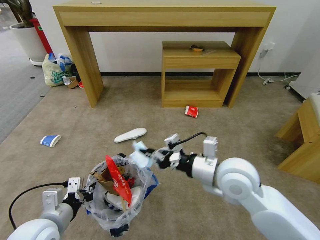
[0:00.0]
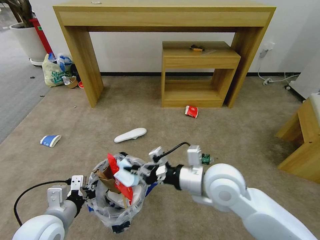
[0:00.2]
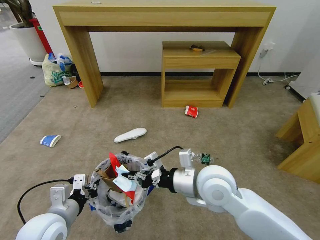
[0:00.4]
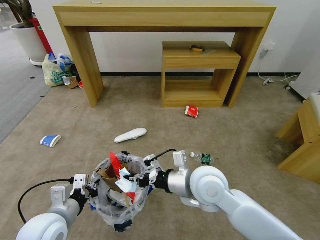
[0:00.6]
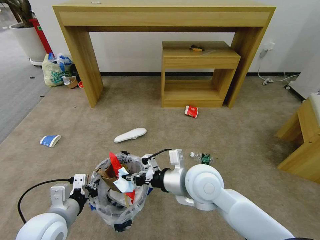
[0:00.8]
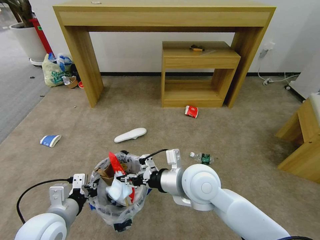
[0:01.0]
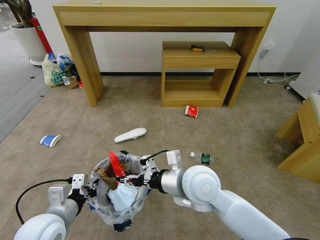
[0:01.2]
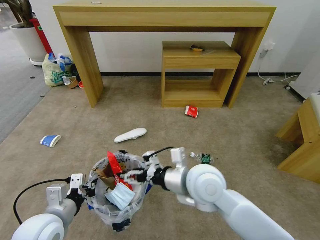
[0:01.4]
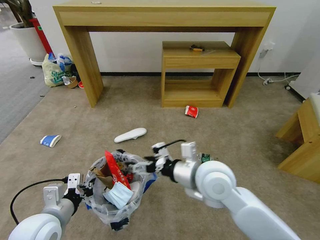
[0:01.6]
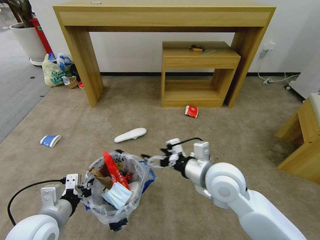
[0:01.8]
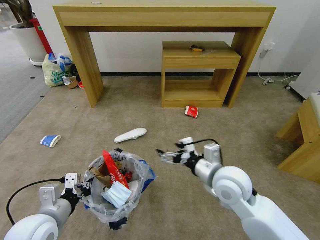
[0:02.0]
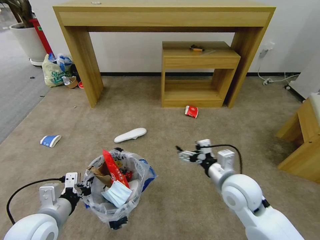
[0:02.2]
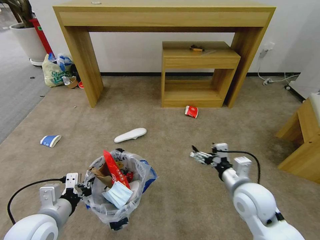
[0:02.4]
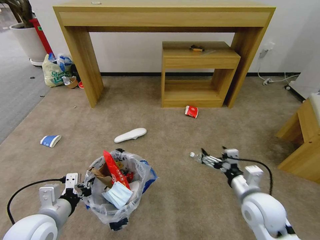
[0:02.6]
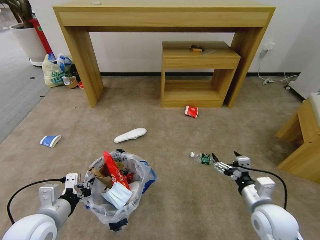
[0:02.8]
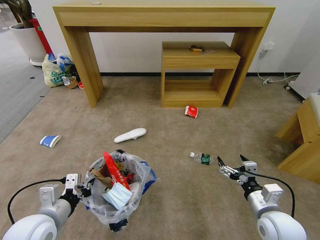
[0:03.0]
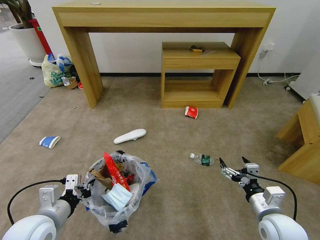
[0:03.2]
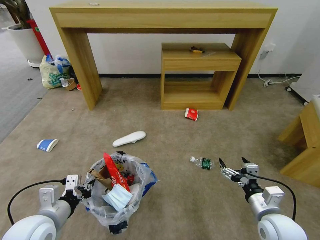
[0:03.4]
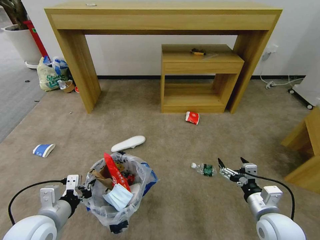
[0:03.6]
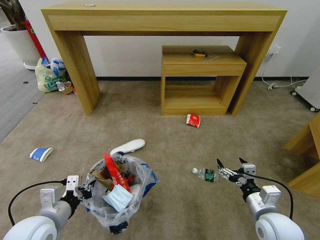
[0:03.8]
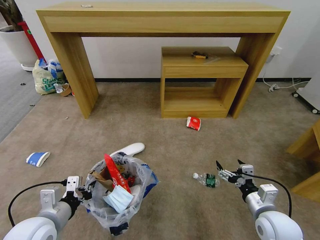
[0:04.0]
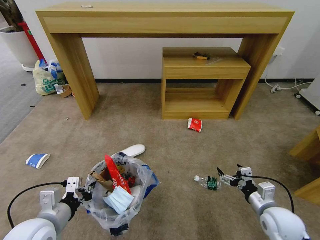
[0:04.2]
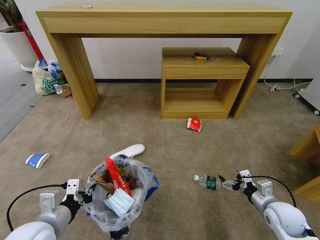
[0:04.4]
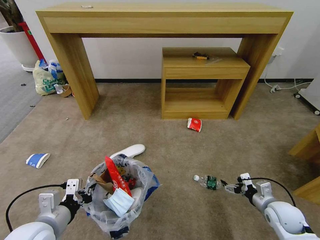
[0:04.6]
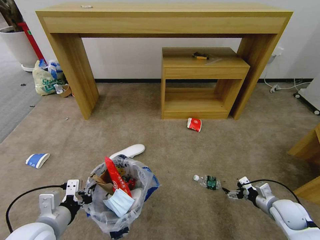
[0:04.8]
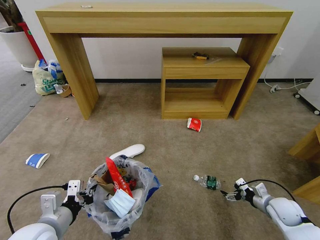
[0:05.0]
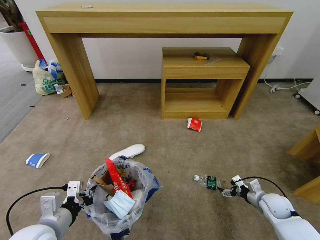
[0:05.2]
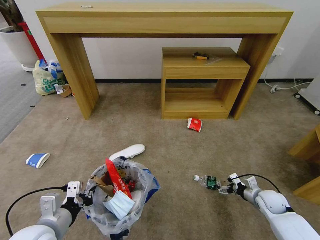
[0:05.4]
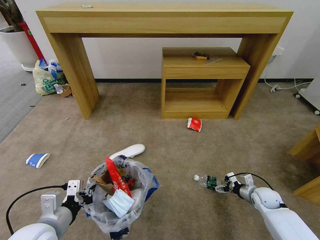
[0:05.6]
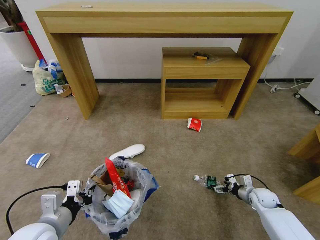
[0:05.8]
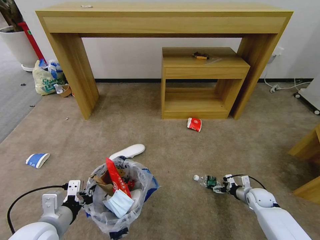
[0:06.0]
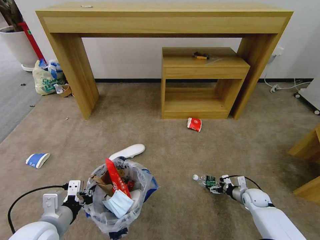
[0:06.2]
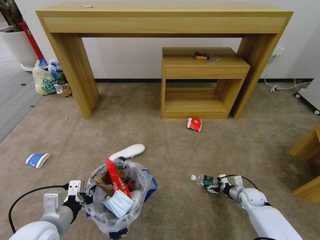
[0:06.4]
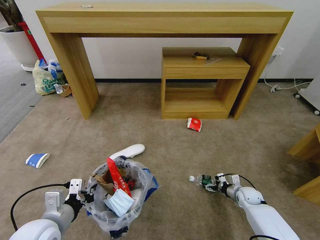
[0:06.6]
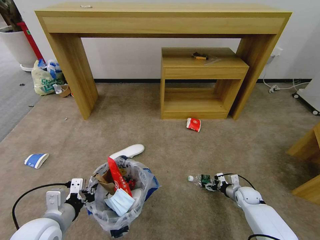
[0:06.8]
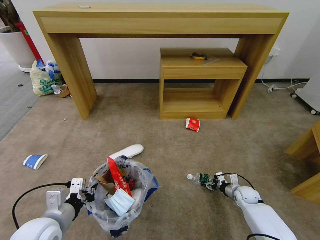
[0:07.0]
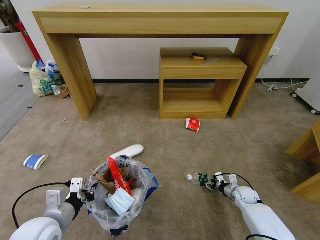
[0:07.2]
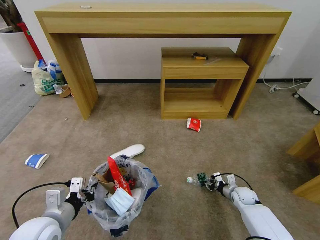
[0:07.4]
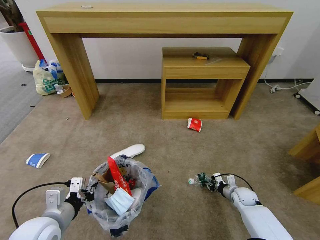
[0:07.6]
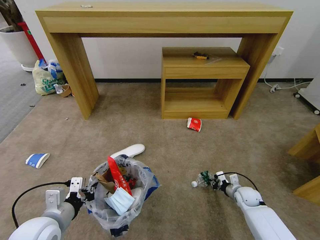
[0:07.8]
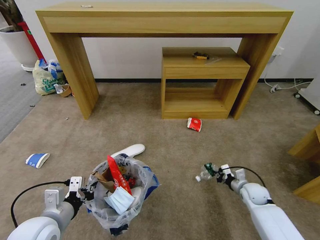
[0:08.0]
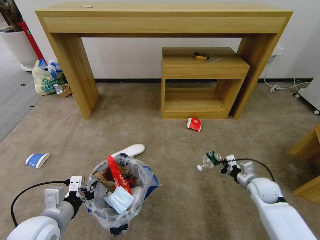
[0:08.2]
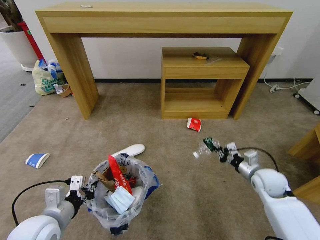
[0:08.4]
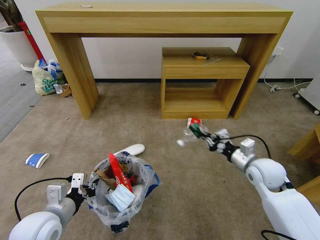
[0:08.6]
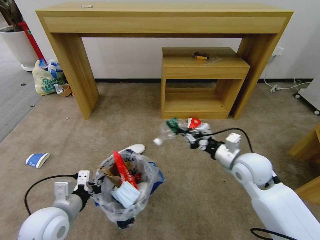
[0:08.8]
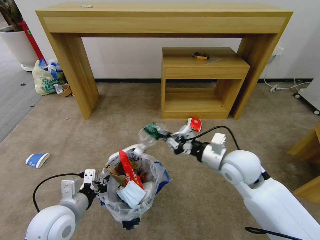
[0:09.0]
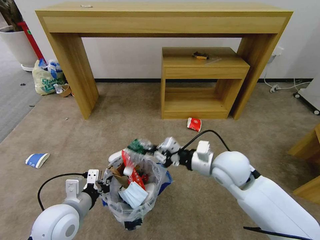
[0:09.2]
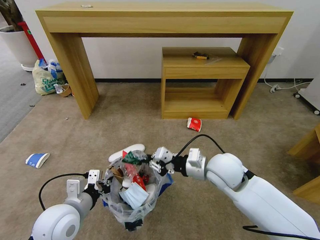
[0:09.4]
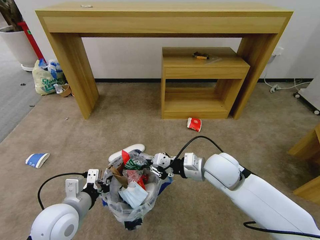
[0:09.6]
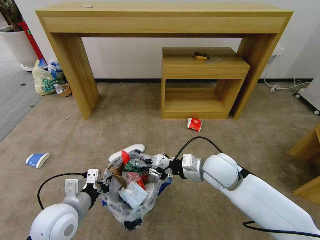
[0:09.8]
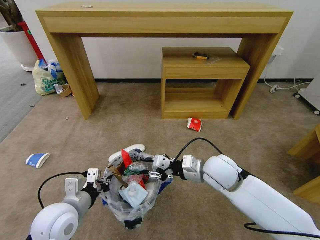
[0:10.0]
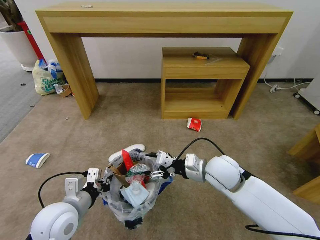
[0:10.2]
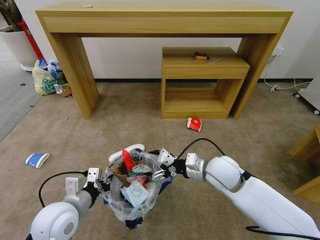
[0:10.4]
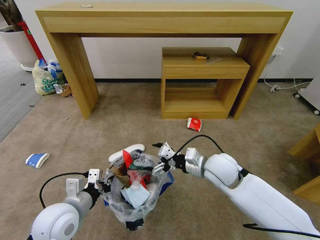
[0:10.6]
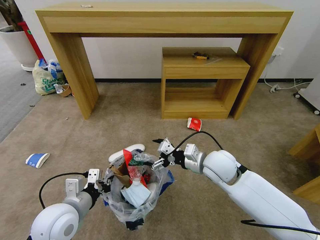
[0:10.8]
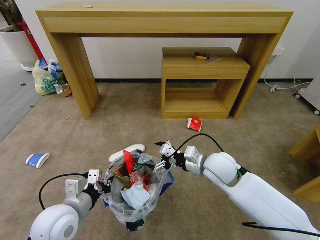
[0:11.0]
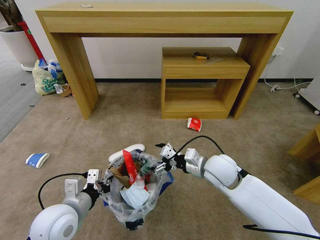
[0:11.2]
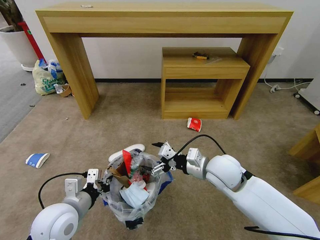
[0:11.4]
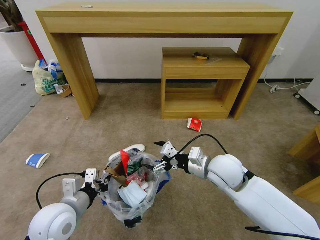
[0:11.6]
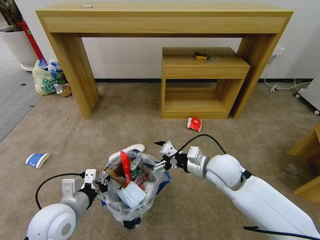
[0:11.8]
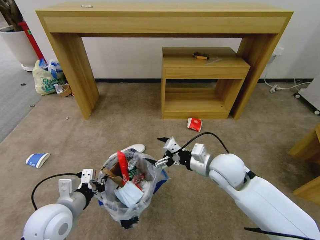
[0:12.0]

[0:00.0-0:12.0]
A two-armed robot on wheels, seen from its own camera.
Task of the whole recording: Pick up the trash bin and place the garbage on the floor into it.
0:00.0 to 0:01.6: The right gripper shifts some 5 cm to the left, and opens.
0:01.6 to 0:03.0: The right gripper heads to the right, downward and backward, covering some 25 cm.
0:03.0 to 0:04.4: The right gripper moves to the right, about 5 cm.
0:04.4 to 0:06.0: The right gripper moves downward and forward, roughly 15 cm.
0:06.0 to 0:07.6: The right gripper goes some 5 cm to the left, and closes its fingers.
0:07.6 to 0:09.0: The right gripper goes roughly 35 cm upward and to the left.
0:09.0 to 0:10.4: The right gripper changes place by some 5 cm, and opens.
0:10.4 to 0:12.0: The grippers move only a little.

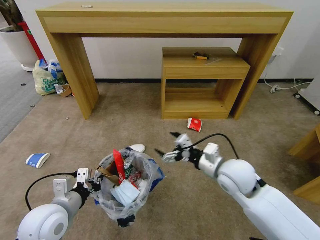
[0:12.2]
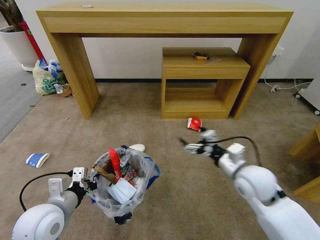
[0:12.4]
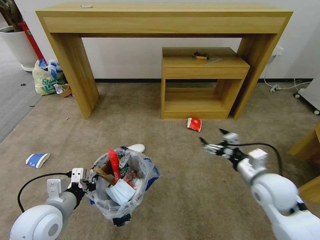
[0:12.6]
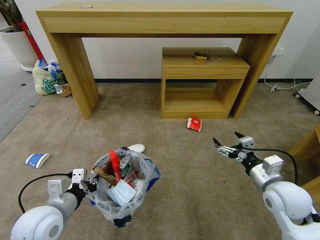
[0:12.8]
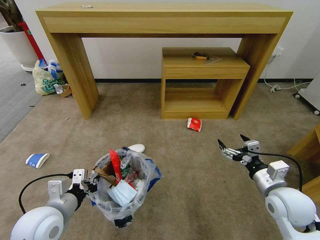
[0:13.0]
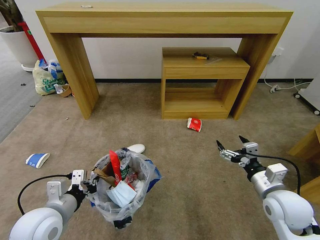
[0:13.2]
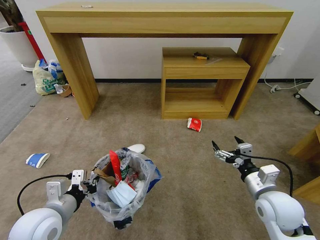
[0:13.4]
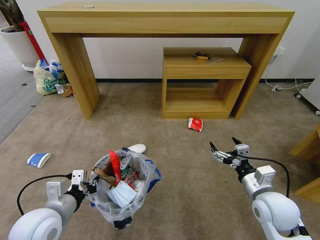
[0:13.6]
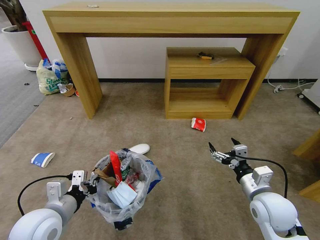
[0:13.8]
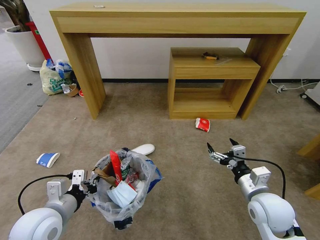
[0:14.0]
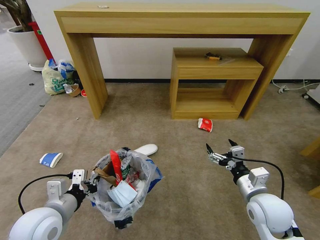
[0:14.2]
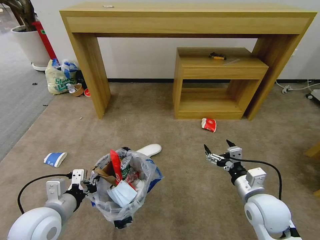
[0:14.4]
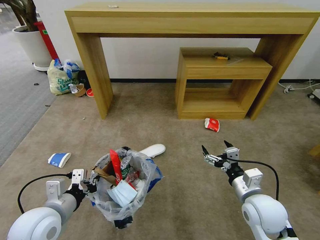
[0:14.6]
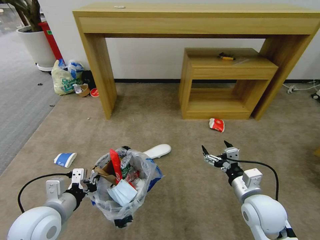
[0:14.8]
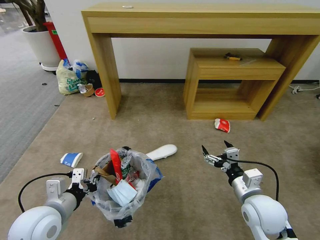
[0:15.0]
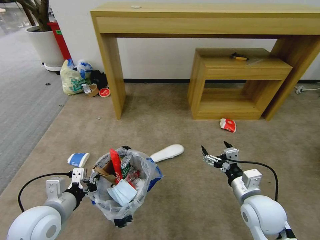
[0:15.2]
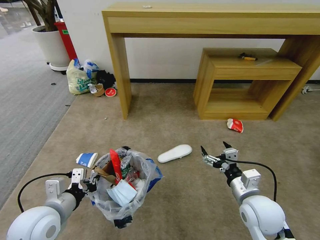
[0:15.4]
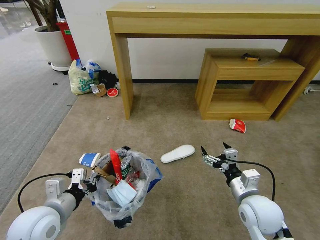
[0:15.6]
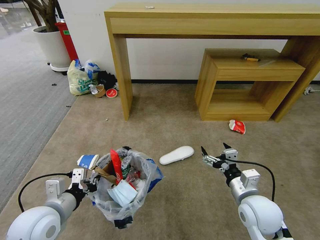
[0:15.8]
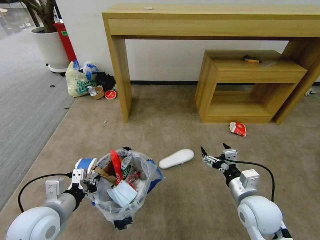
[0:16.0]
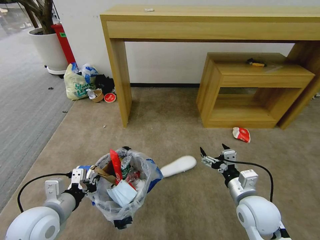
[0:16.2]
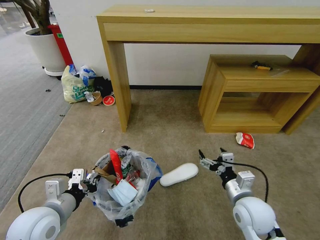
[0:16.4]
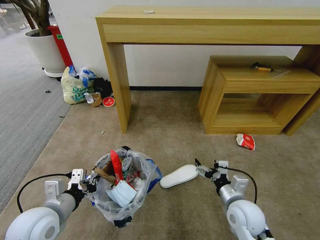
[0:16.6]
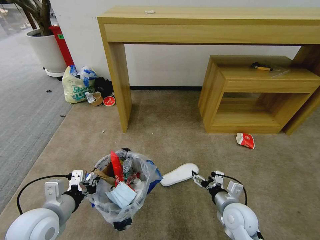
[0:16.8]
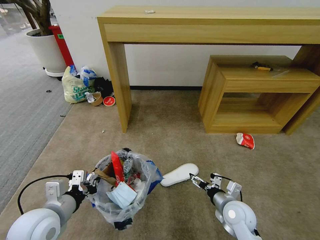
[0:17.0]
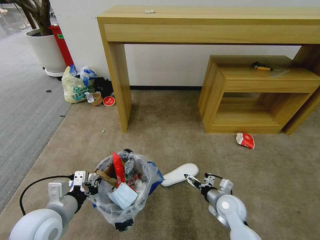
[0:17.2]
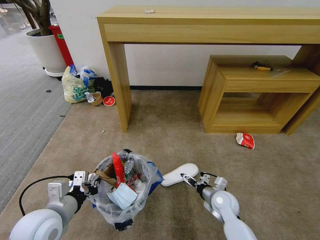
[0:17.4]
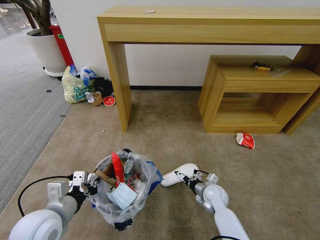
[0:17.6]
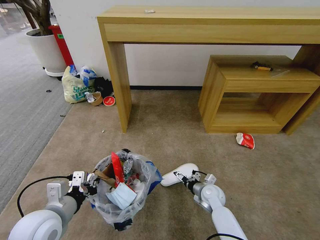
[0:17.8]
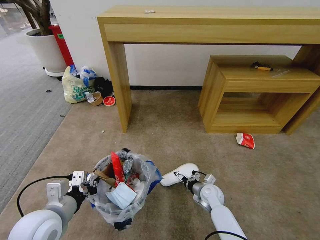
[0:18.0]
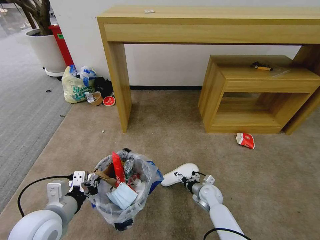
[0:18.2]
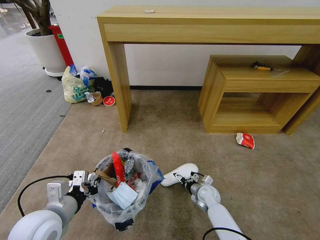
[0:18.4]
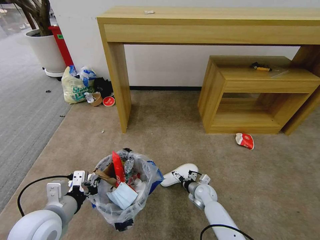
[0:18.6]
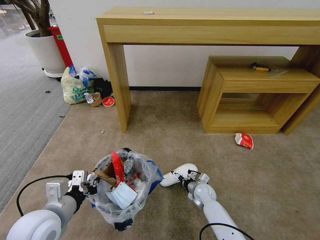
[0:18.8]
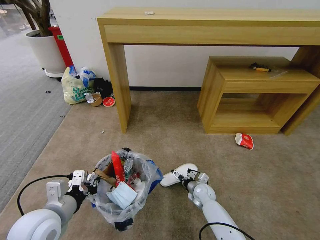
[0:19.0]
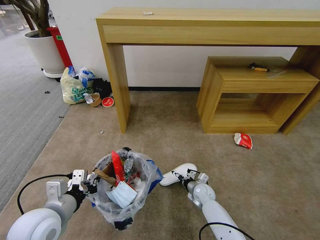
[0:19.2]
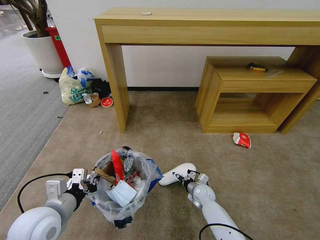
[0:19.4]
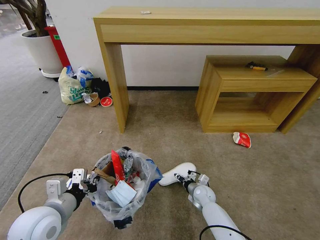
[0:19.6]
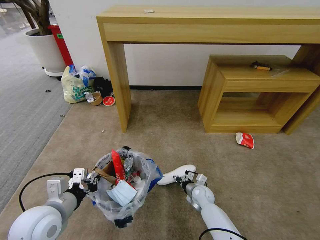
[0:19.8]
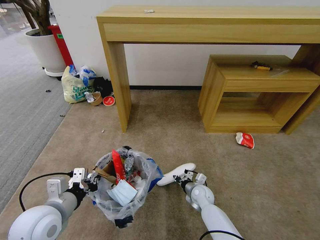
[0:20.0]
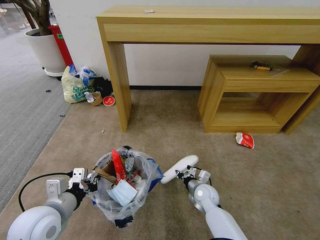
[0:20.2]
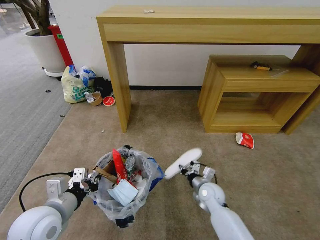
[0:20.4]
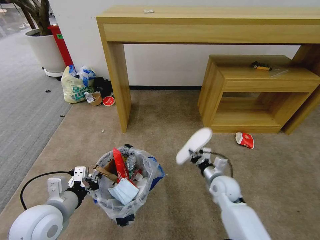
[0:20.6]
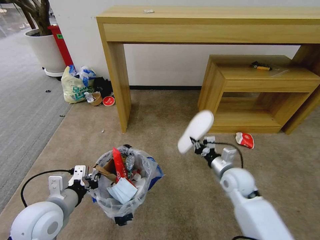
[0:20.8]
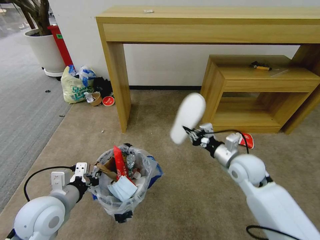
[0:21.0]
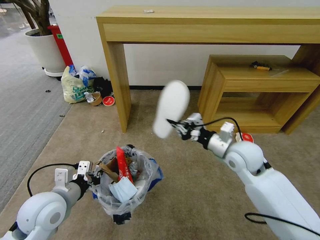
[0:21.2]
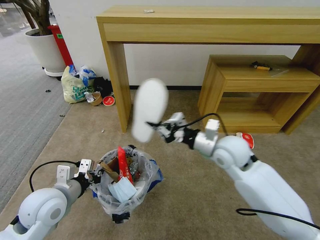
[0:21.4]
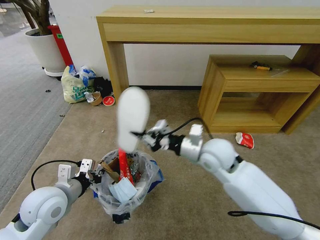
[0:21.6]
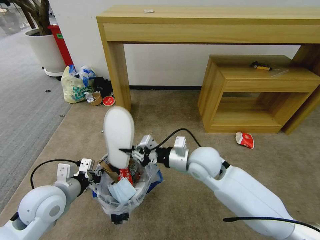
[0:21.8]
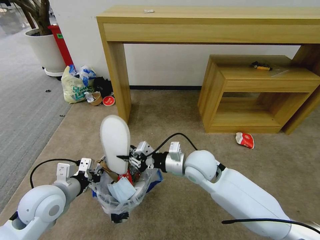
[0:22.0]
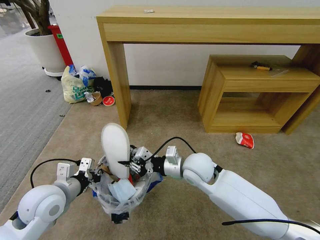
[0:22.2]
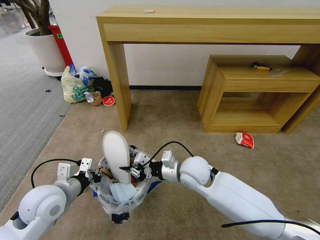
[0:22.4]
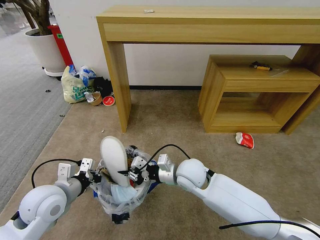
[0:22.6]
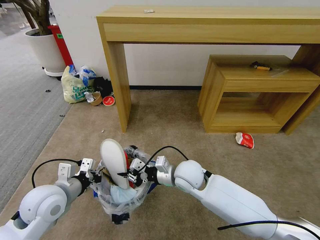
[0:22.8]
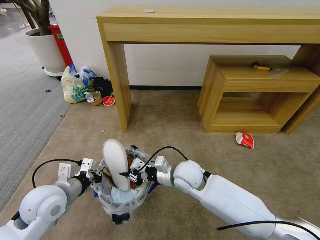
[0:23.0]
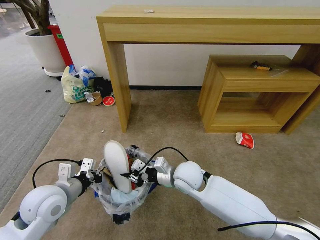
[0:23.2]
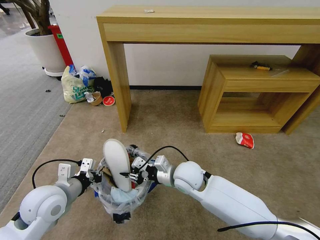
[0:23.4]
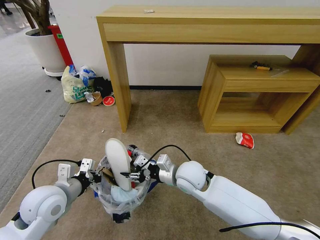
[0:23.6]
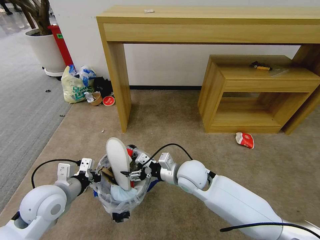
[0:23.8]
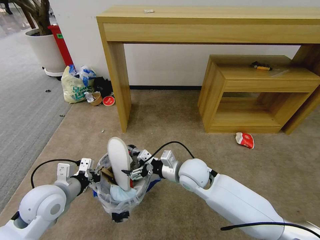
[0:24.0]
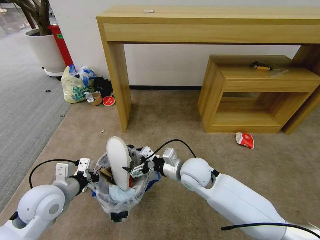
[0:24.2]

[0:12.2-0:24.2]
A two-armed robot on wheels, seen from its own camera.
Task of the whole recording: Pick up the trash bin and place the garbage on the floor into it.
0:12.2 to 0:13.8: The right gripper travels to the right, backward and downward by approximately 15 cm.
0:15.2 to 0:16.6: The right gripper heads downward, covering roughly 5 cm.
0:16.6 to 0:18.2: The right gripper goes about 20 cm downward and forward.
0:18.2 to 0:19.8: The right gripper closes.
0:19.8 to 0:21.2: The right gripper shifts roughly 30 cm upward.
0:21.2 to 0:22.6: The right gripper goes roughly 15 cm to the left and downward.
0:22.6 to 0:24.2: The right gripper opens.
